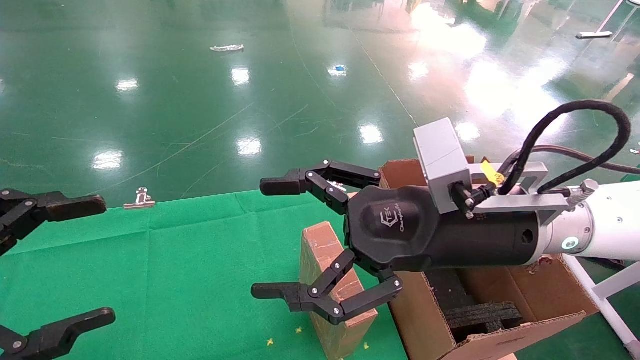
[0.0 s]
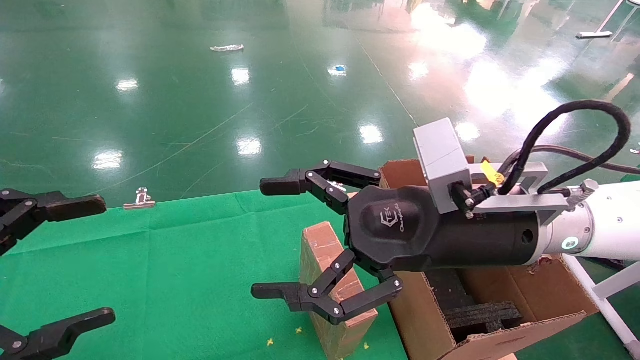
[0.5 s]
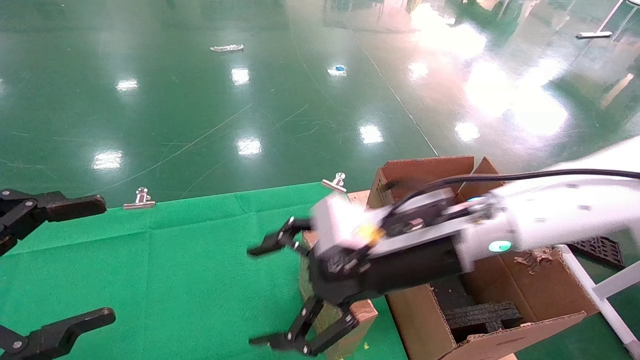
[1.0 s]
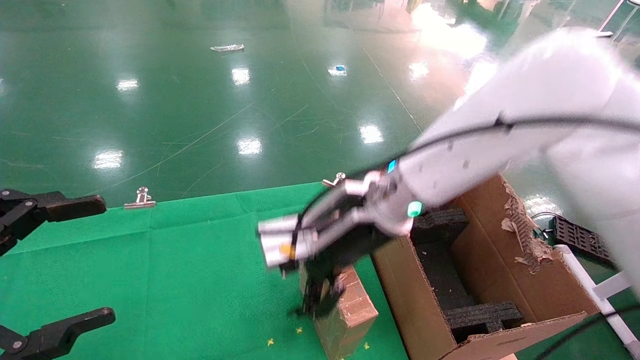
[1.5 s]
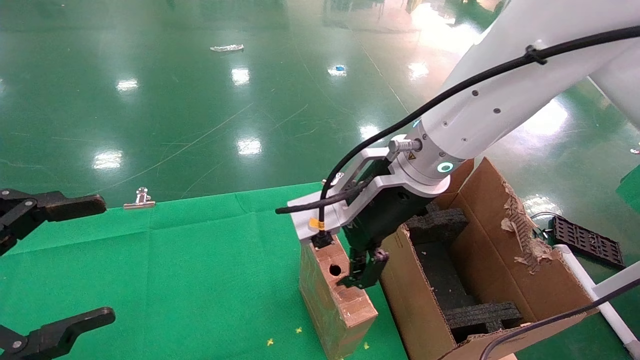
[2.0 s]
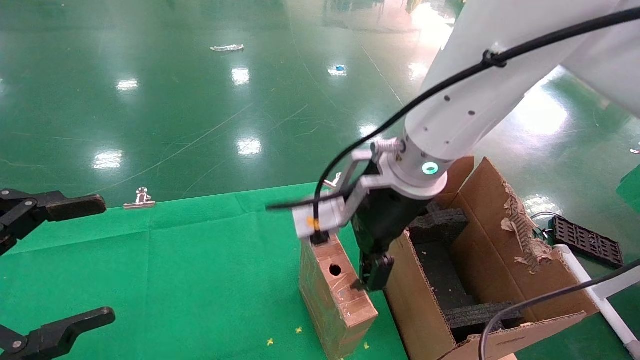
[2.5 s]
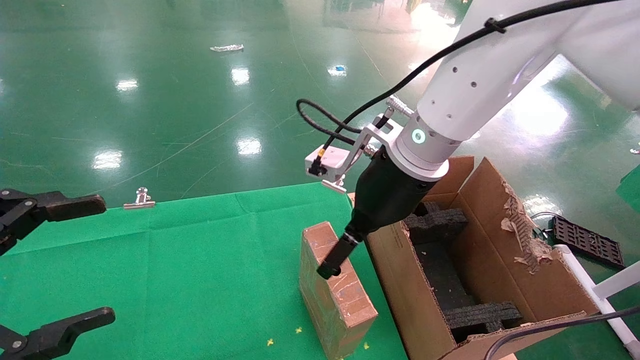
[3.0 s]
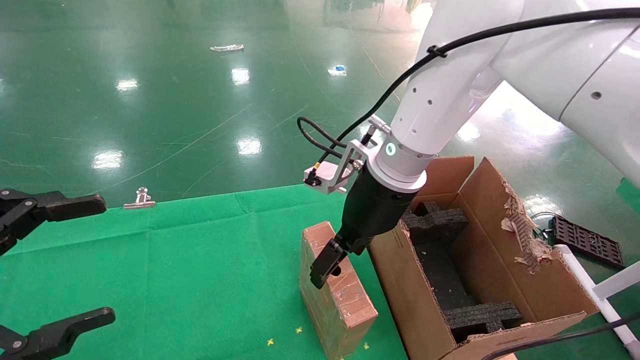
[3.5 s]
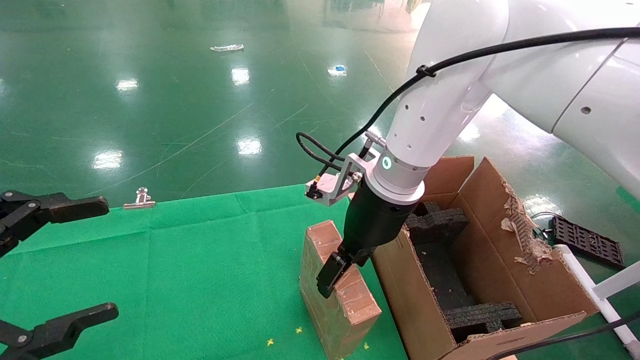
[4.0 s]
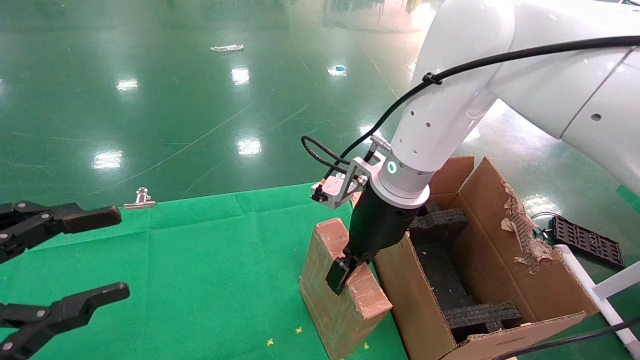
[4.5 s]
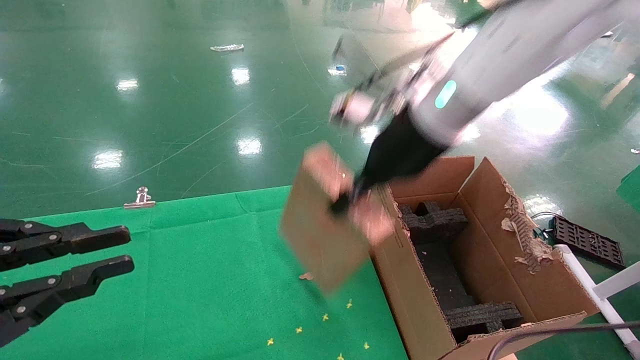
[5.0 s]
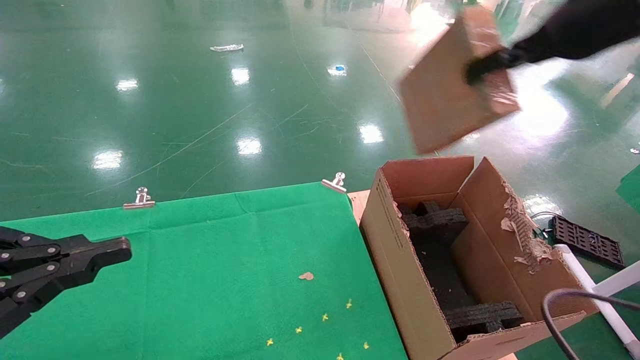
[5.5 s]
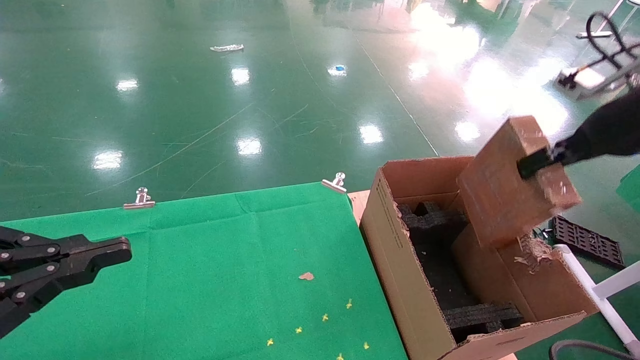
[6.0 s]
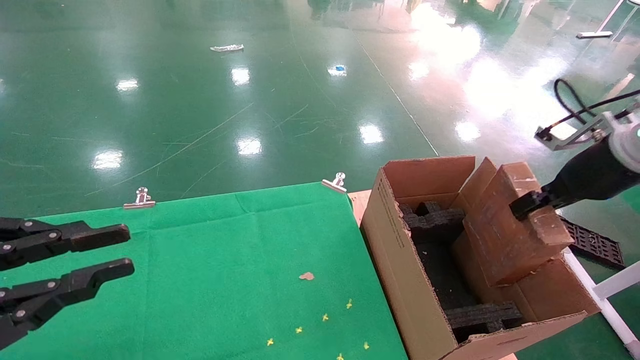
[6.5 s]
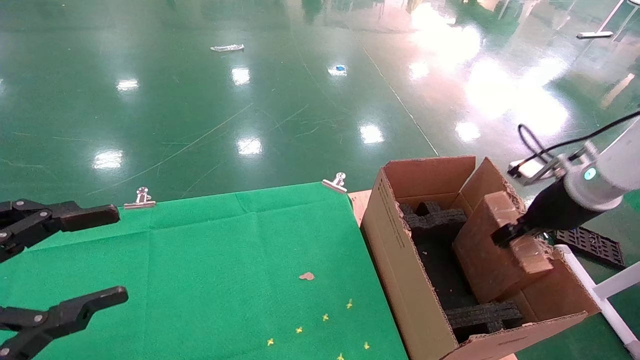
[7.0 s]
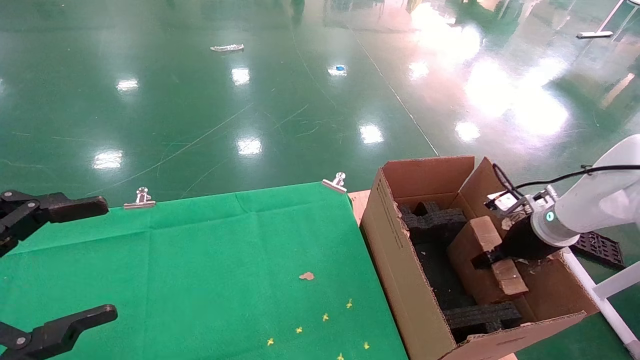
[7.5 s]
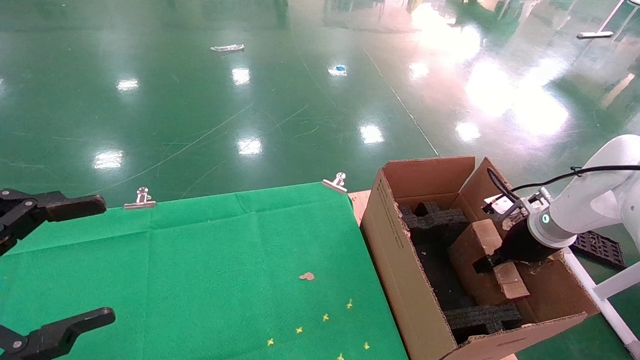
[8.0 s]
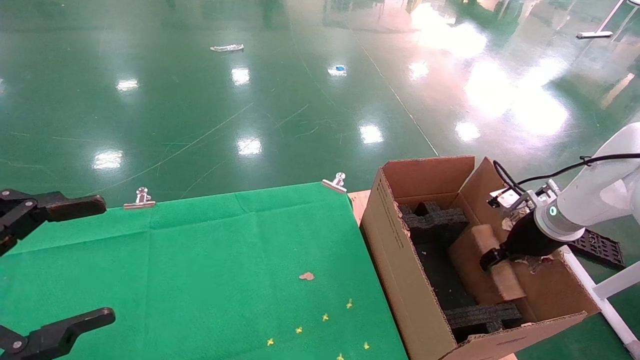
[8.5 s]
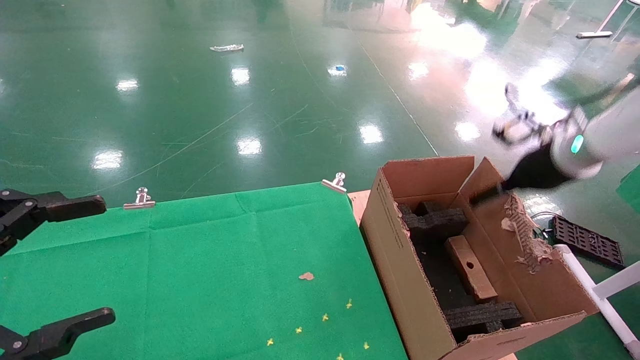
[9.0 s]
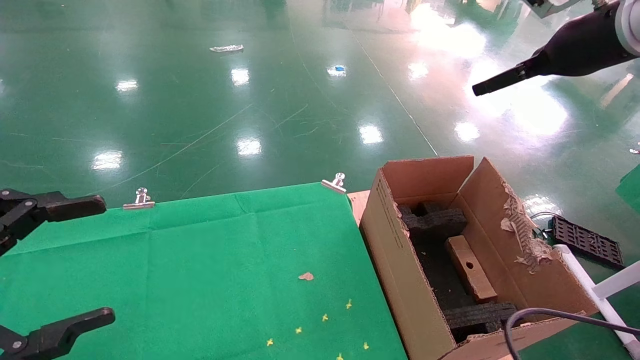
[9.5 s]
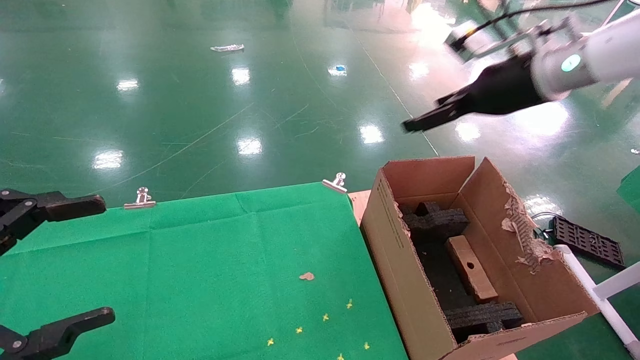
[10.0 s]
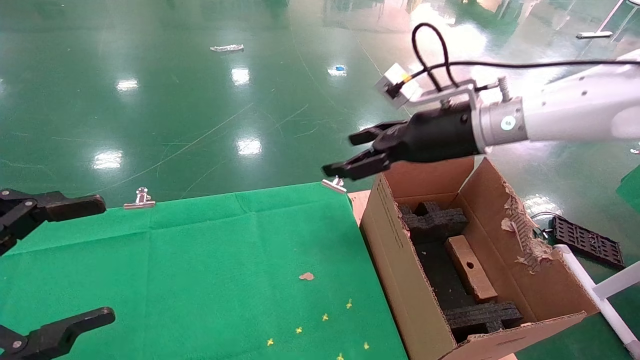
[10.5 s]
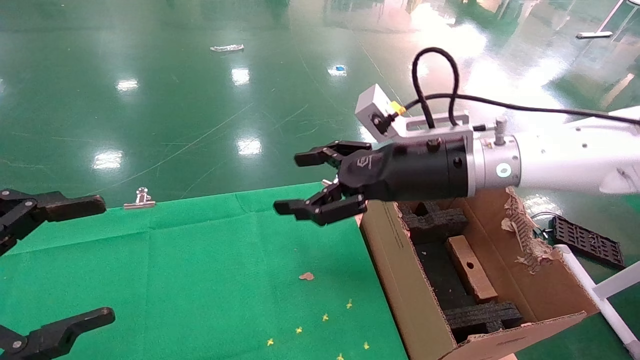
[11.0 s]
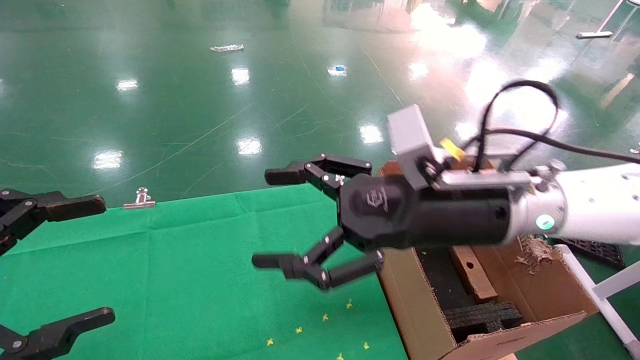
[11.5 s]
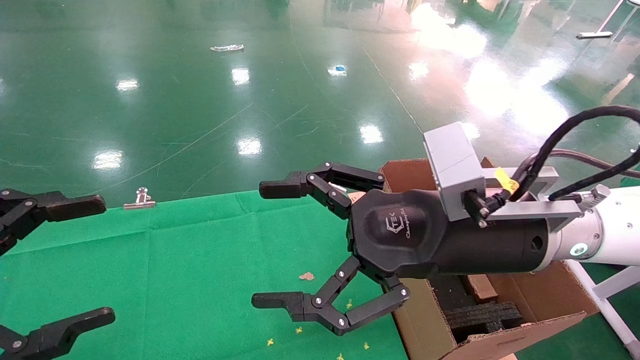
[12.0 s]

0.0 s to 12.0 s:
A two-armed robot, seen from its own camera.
Task of the whole recording: using a robotic arm to pick up a cardboard box and palace it the carton.
Step, 1.0 to 4.5 s: Pick up the mouse and the power cord paper box.
Step, 5.0 to 9.0 s: Place the mouse and the power cord paper box into the container.
0.0 to 2.0 s: The right gripper travels forward and to the left by about 10 cm.
2.0 to 4.0 s: The right gripper is displaced forward by about 5 cm.
4.0 to 6.0 s: The right gripper moves to the right, roughly 30 cm, and closes; the left gripper closes its fingers.
6.0 to 8.0 s: The left gripper opens, while the right gripper shifts some 25 cm downward.
8.0 to 10.0 s: The right gripper shifts about 25 cm upward and to the left, and opens its fingers.
10.0 to 12.0 s: The right gripper travels backward, to the left and downward by roughly 25 cm.

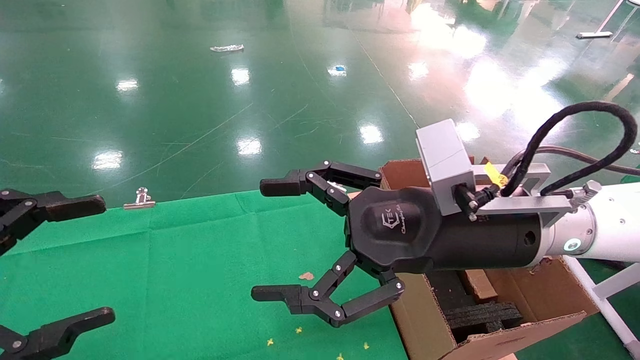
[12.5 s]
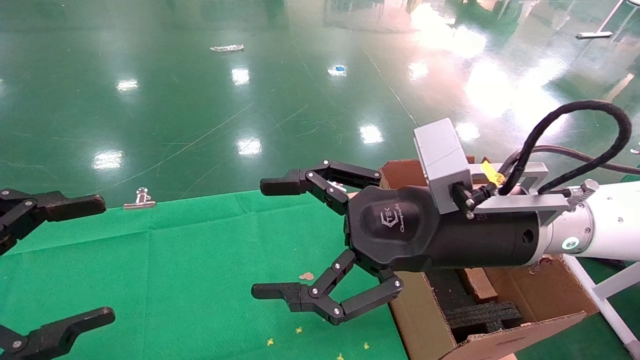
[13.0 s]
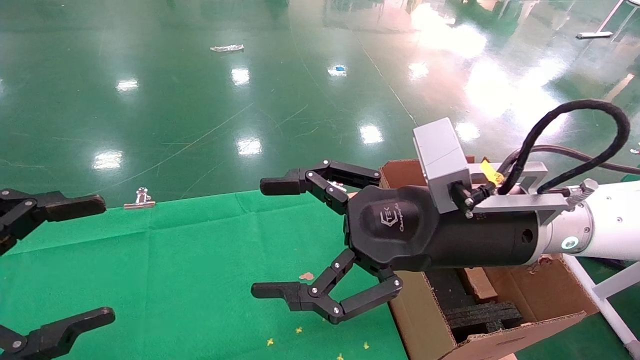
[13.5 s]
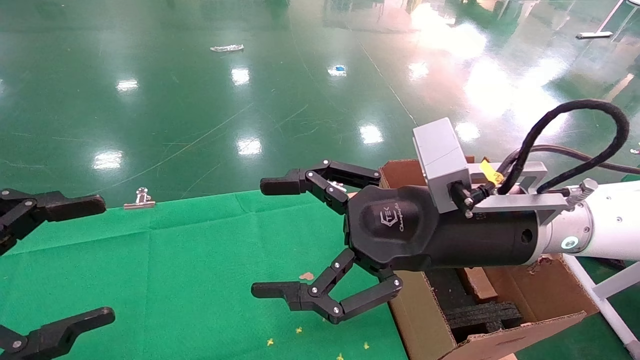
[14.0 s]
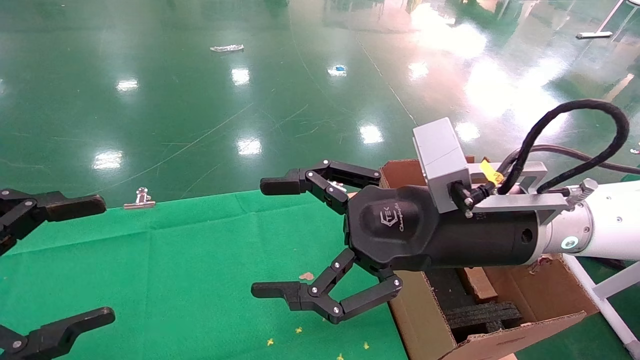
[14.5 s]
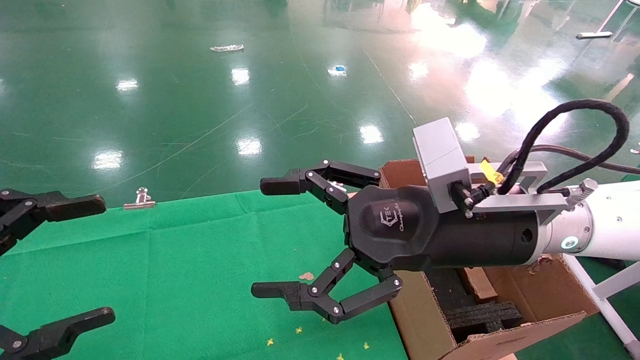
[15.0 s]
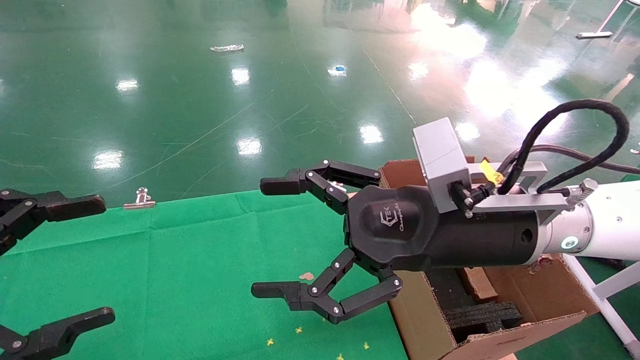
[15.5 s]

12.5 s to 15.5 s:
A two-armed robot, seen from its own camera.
Task of the whole recording: using a robotic arm to pick up a cardboard box and palace it the carton.
12.5 to 15.5 s: Both grippers stay put.
